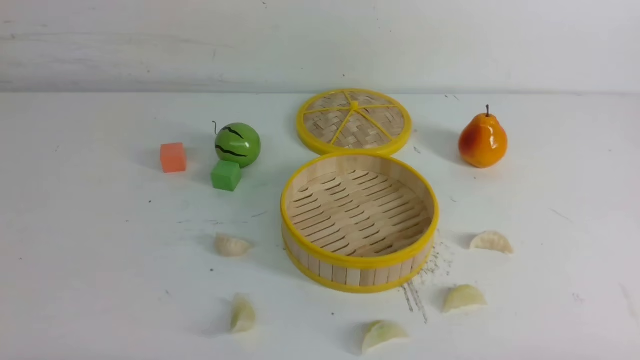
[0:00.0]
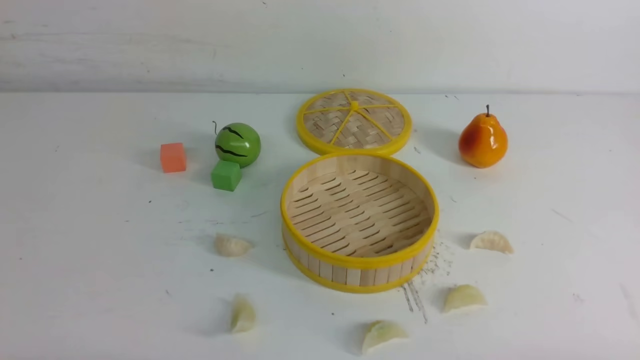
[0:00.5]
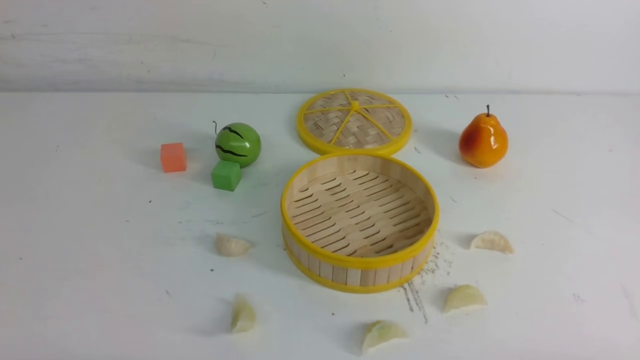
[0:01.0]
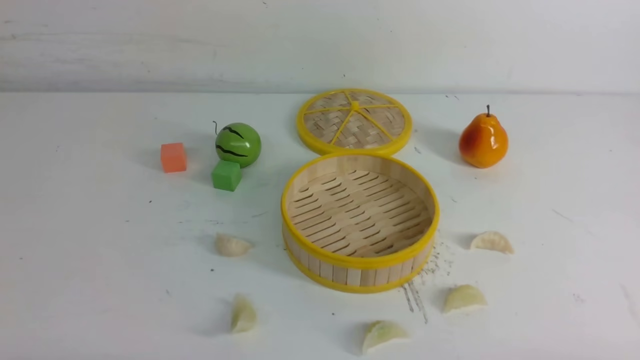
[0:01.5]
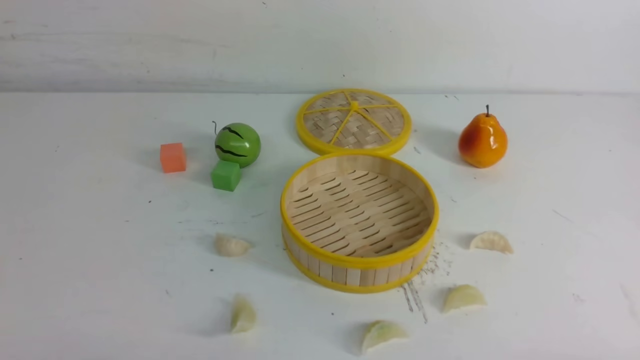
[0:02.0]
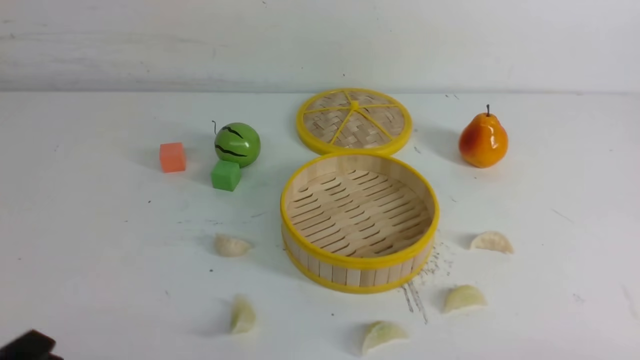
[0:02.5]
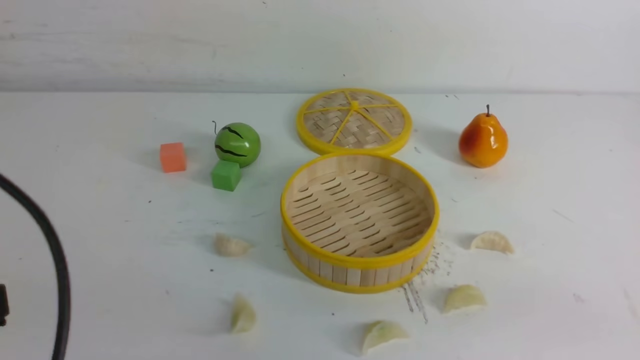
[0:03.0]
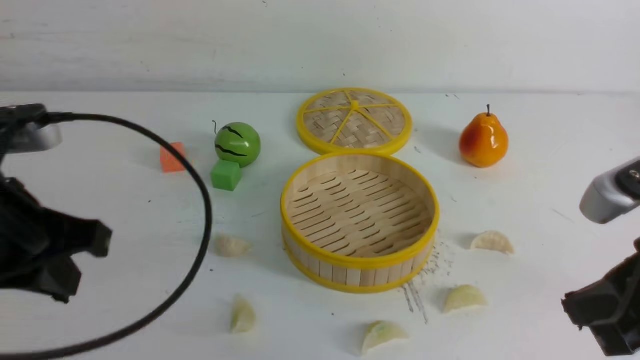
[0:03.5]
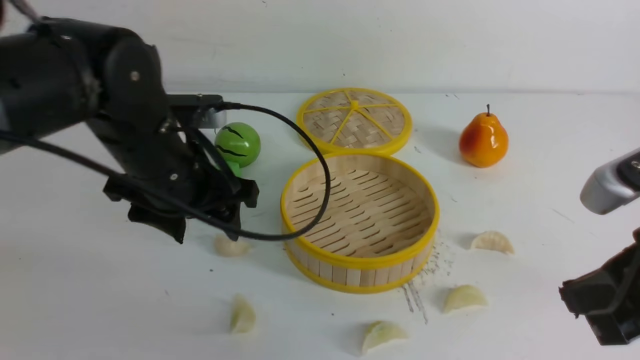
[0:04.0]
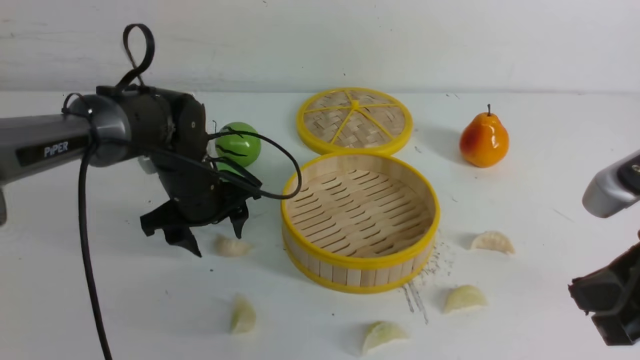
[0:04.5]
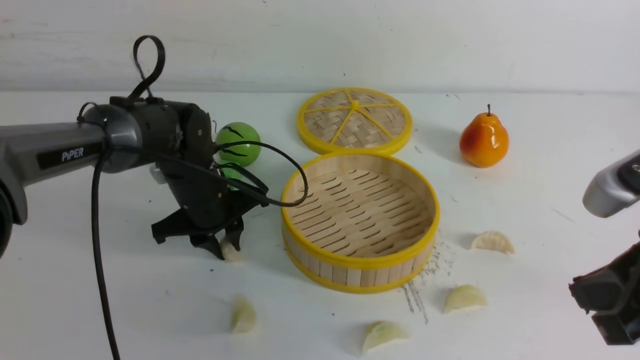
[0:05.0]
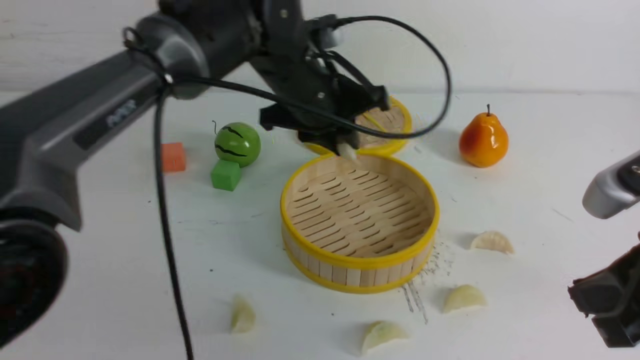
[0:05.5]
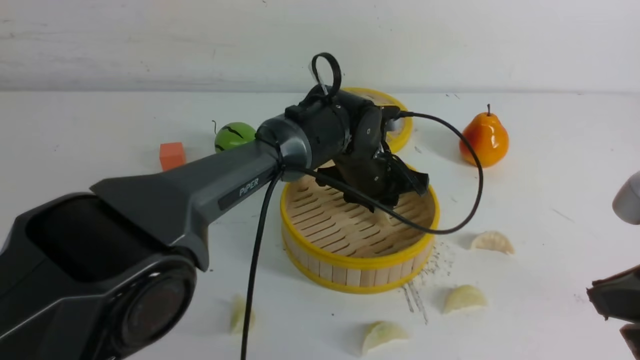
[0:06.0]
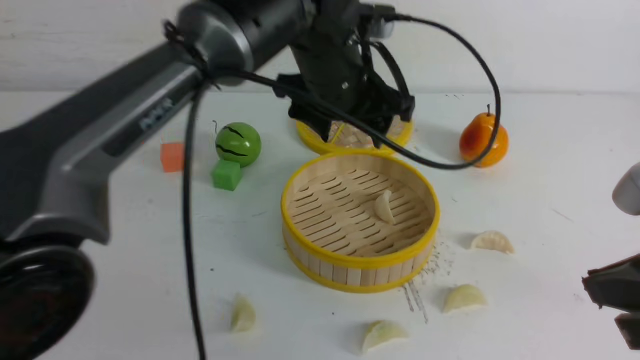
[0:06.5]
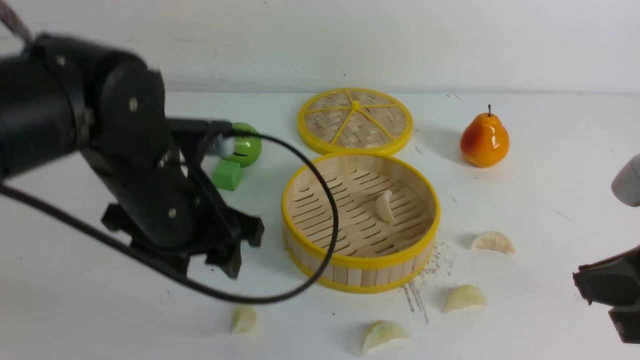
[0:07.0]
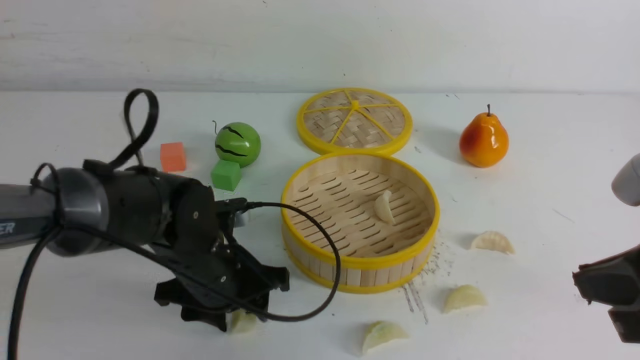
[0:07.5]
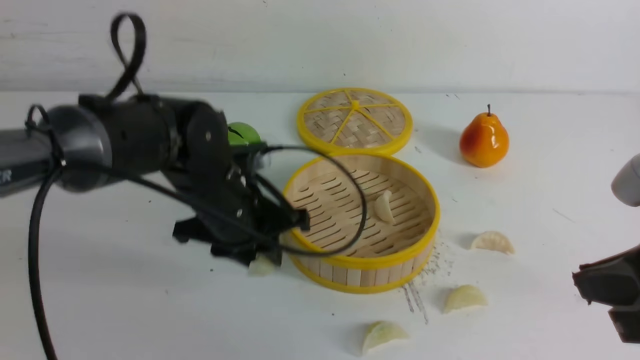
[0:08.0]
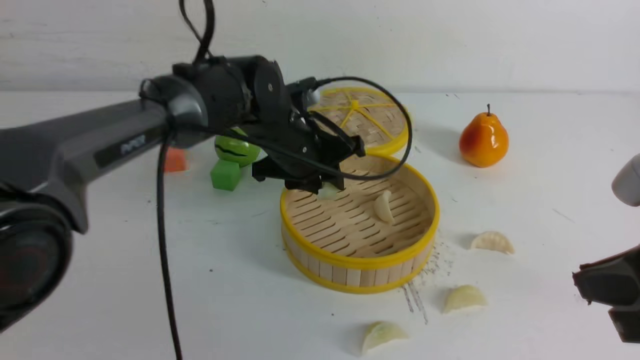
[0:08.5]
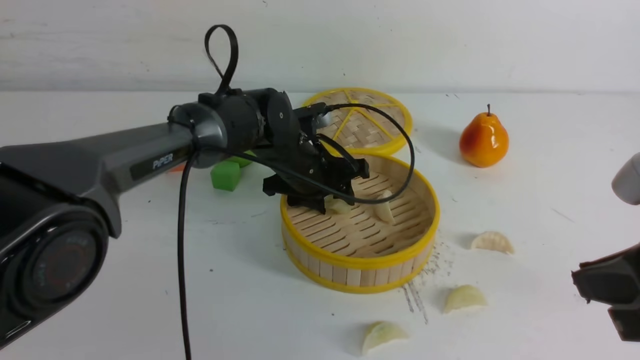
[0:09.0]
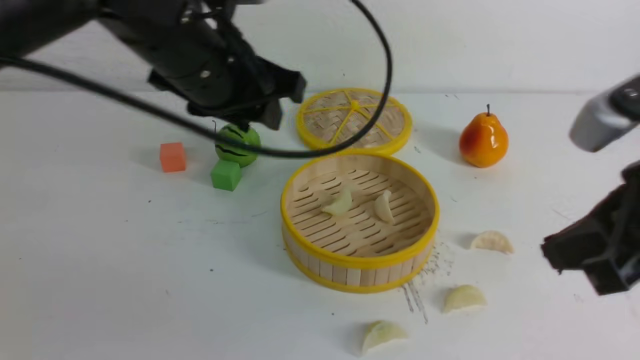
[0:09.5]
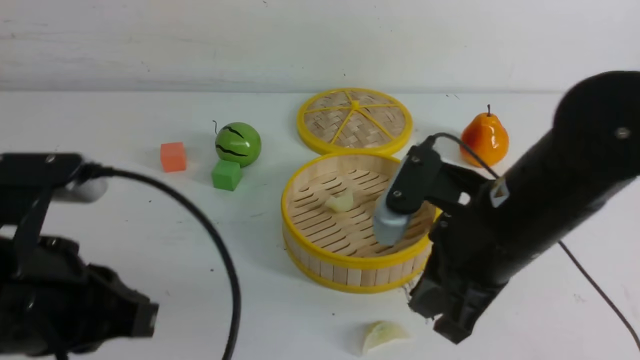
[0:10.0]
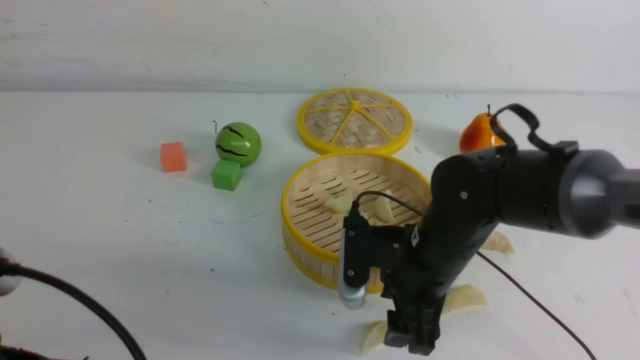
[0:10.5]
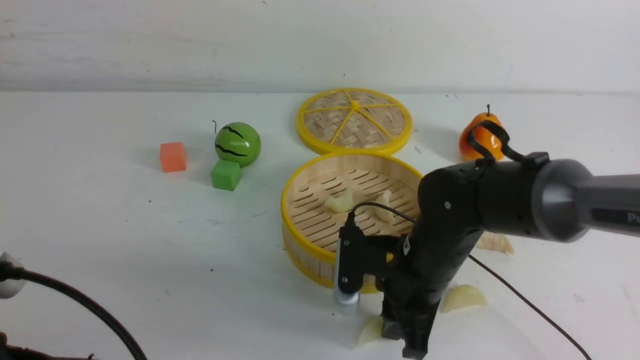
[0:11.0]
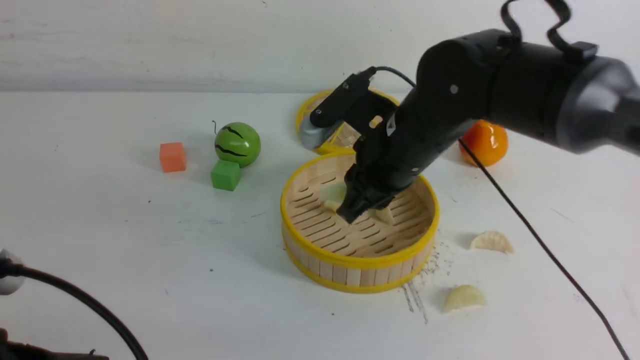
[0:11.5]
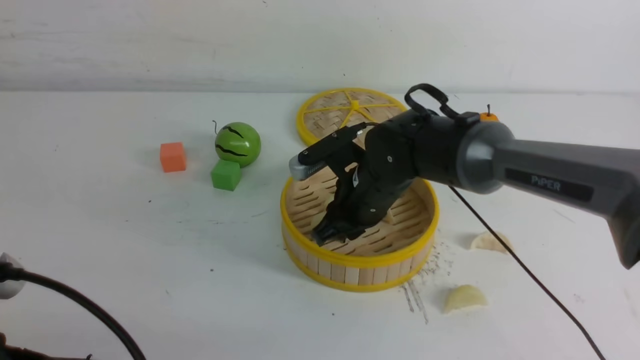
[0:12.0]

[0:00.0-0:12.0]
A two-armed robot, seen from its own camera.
Task of the whole recording: put the dumplings into the steamer on the white table.
Step, 0:00.0 to 0:05.0: use the left arm to grab a dumpling.
Step, 0:05.5 to 0:06.0: use the left arm to put the dumpling into the steamer.
Step, 0:06.5 to 0:07.5: use the left arm to grab a dumpling.
Step, 0:08.0 to 0:08.5: use the left arm to put the dumpling into the steamer.
Step, 0:09.0 to 0:11.0: use the right arm to grab a dumpling.
0:02.0 to 0:04.0: The right gripper goes approximately 20 cm upward, forward and to the left, and closes, while the left gripper shifts roughly 30 cm forward and to the right, and opens its fingers.
0:04.0 to 0:06.0: The left gripper shifts roughly 20 cm to the right and forward.
0:06.0 to 0:08.0: The left gripper goes up and down, approximately 15 cm each way, reversing 2 times, and opens and closes again.
0:08.0 to 0:10.0: The right gripper moves to the left and forward, approximately 15 cm, while the left gripper shifts about 25 cm backward, to the left and upward, and closes up.
0:10.0 to 0:12.0: The right gripper travels forward, downward and to the left by some 20 cm, and opens, then closes once more, while the left gripper travels backward by roughly 5 cm.

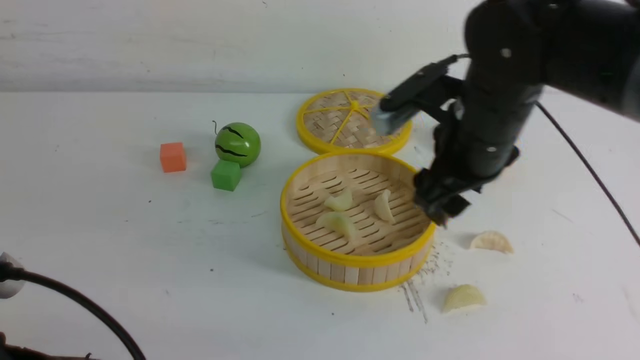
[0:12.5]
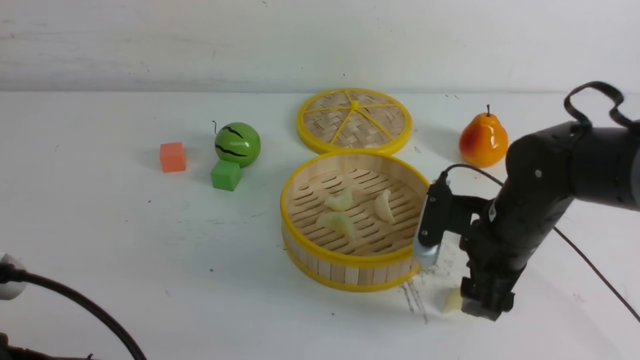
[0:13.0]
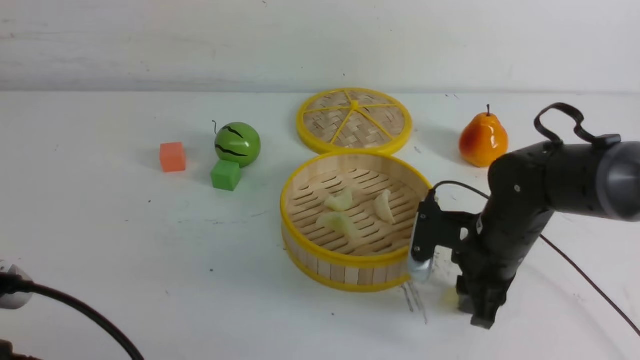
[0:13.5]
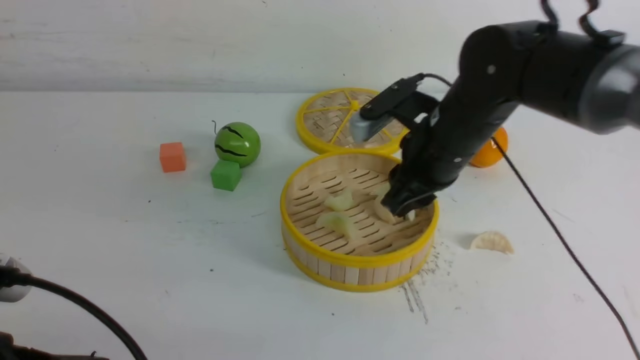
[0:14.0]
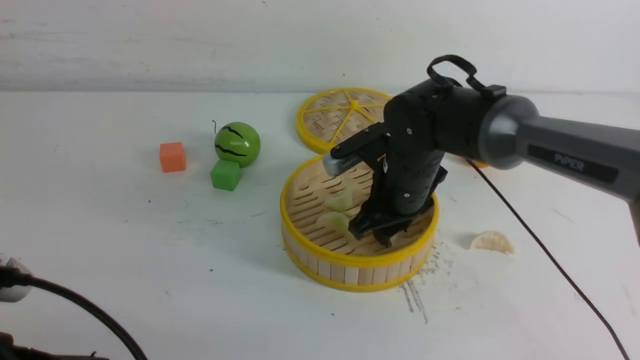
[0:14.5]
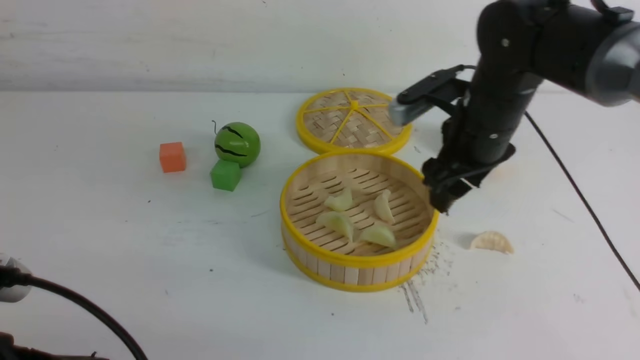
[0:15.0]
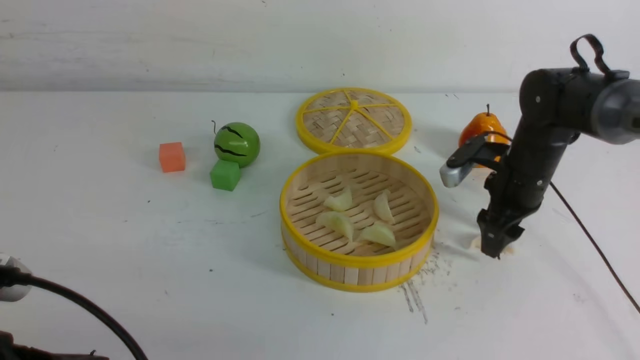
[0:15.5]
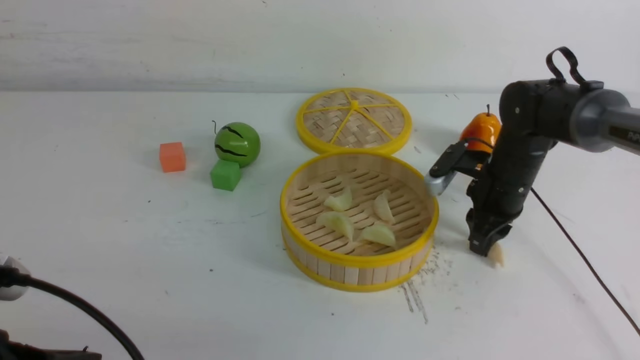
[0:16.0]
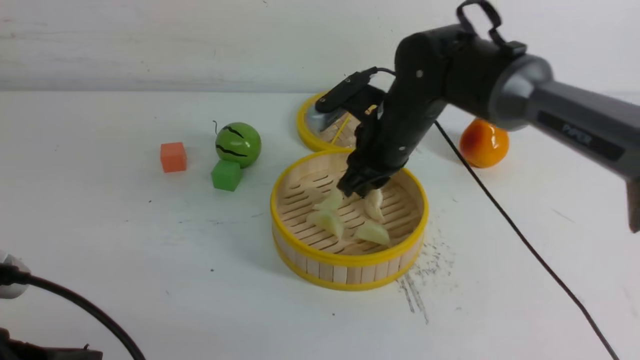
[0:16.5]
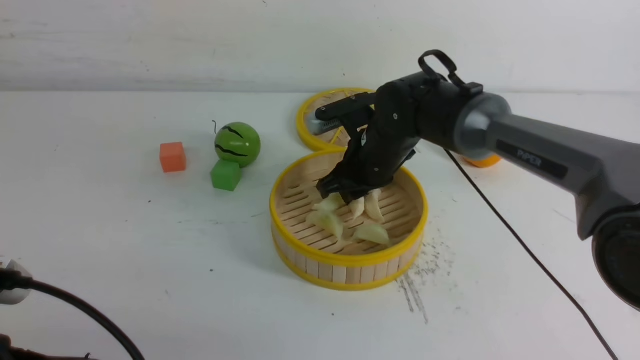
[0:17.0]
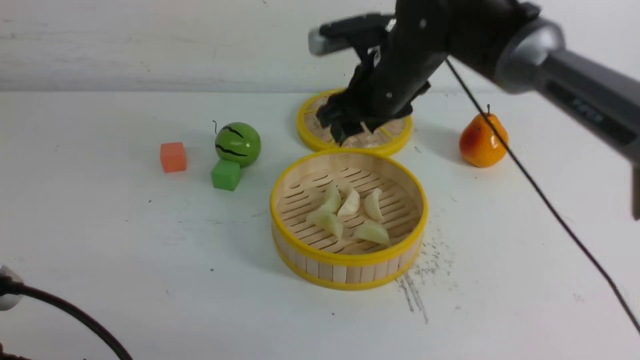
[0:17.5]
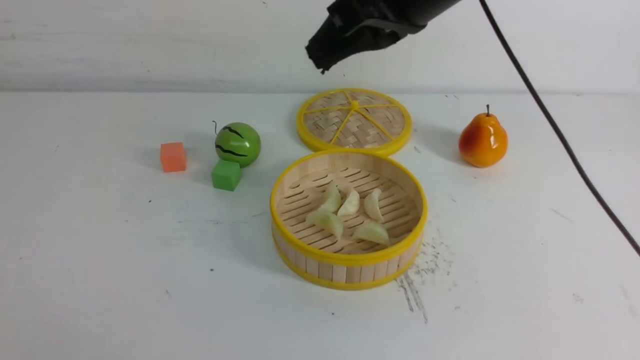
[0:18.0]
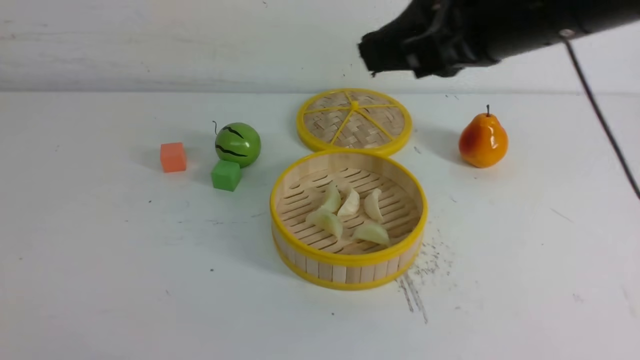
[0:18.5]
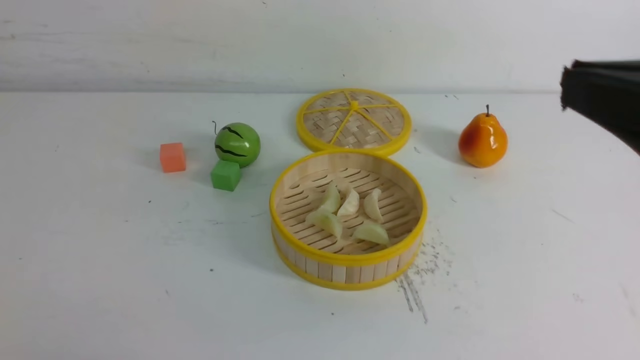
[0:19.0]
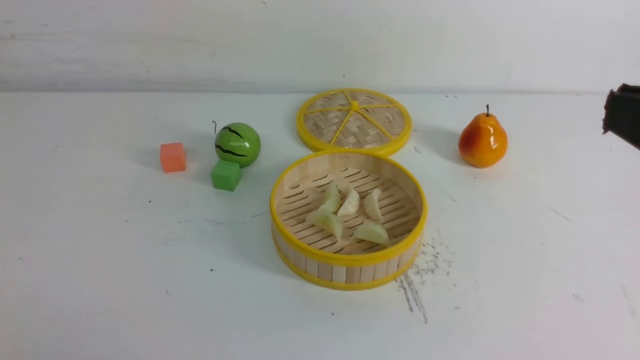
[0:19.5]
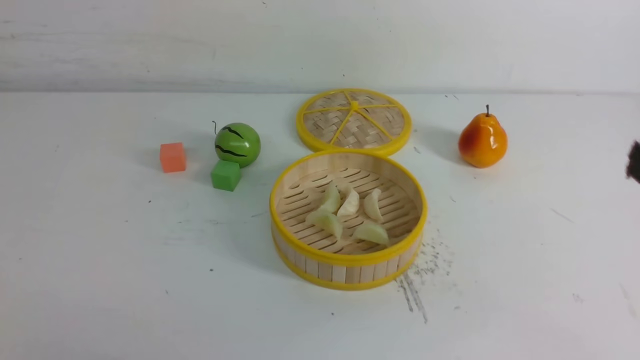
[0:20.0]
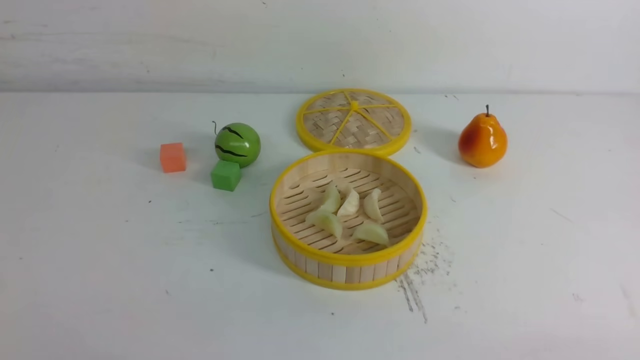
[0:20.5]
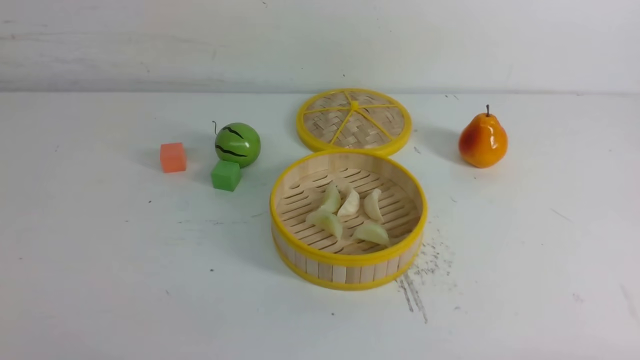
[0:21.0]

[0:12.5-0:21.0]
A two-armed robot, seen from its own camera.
Task of the whole recording: put the dumplings into the steamer on the white table.
Step, 0:12.5 to 0:13.5: use the right arm to grab a dumpling.
Step, 0:14.0 to 0:14.5: use the right arm to put the dumpling into the steamer.
Step, 0:15.0 to 0:16.0: use the right arm to grab a dumpling.
Step, 0:16.5 to 0:17.0: use the right arm to put the dumpling into the steamer.
0:12.5 to 0:14.5: The right gripper shifts roughly 10 cm downward and to the left.
0:14.5 to 0:16.5: The right gripper reaches about 15 cm to the right, then returns.
0:16.5 to 0:19.0: The left gripper travels backward by some 5 cm; the right gripper is displaced backward, upward and to the right by roughly 35 cm.
0:19.0 to 0:21.0: The right gripper goes about 25 cm downward.
